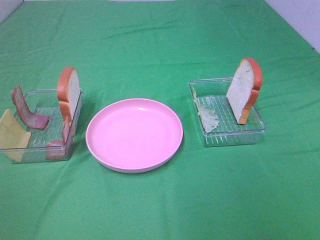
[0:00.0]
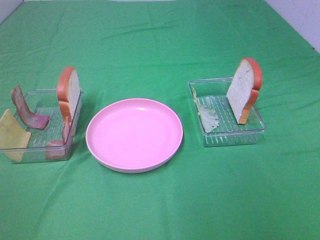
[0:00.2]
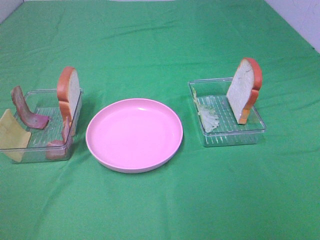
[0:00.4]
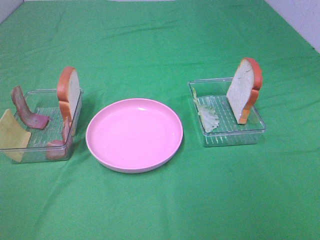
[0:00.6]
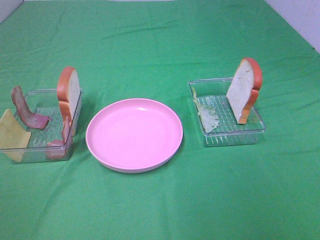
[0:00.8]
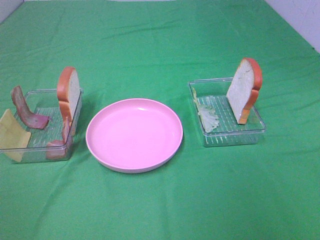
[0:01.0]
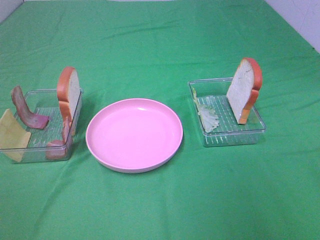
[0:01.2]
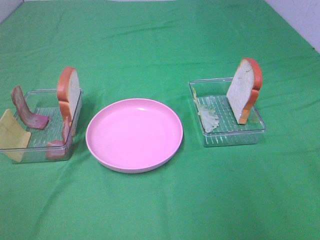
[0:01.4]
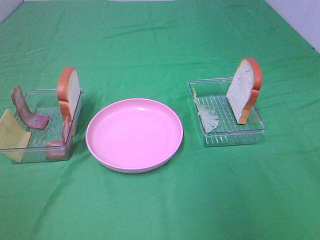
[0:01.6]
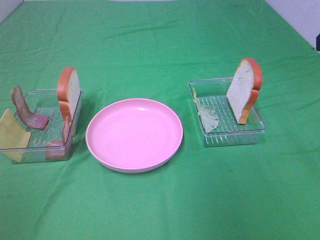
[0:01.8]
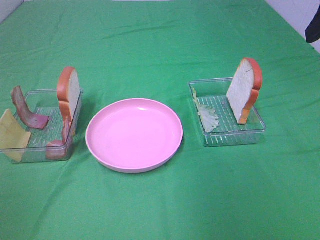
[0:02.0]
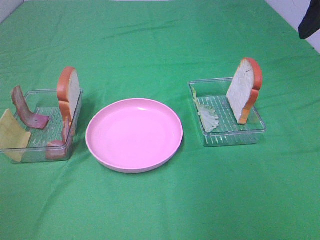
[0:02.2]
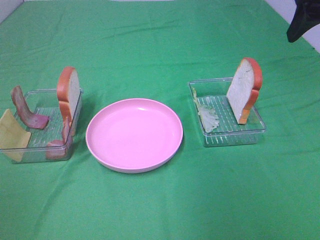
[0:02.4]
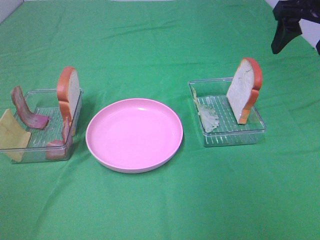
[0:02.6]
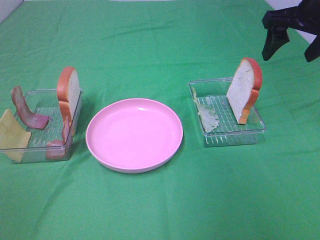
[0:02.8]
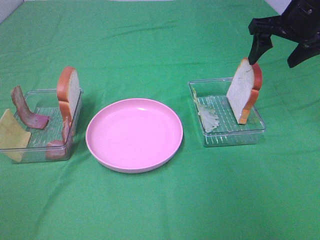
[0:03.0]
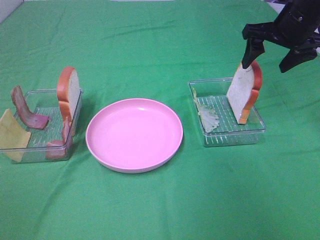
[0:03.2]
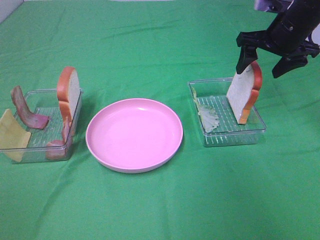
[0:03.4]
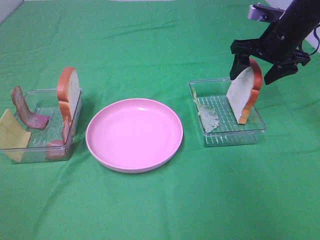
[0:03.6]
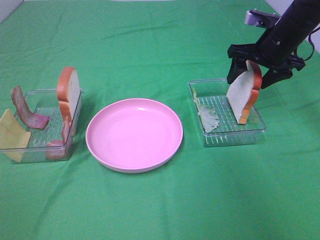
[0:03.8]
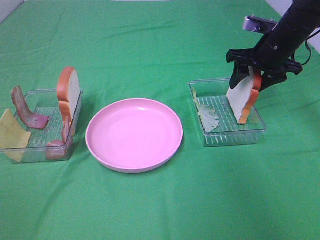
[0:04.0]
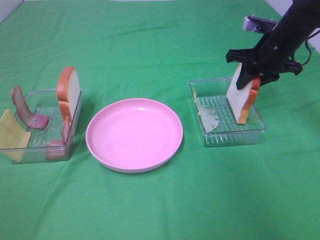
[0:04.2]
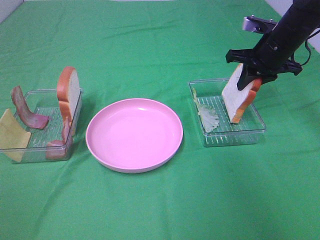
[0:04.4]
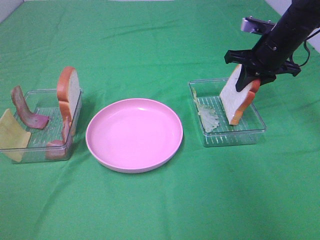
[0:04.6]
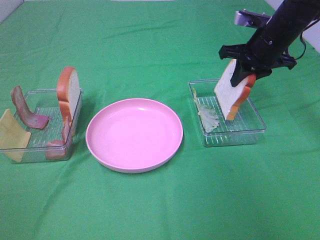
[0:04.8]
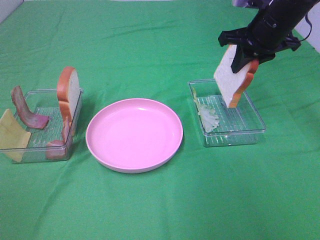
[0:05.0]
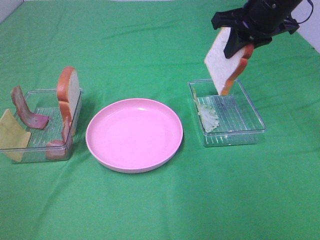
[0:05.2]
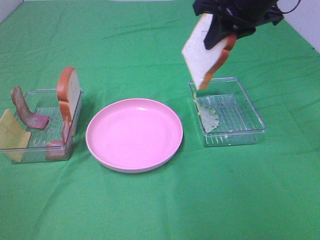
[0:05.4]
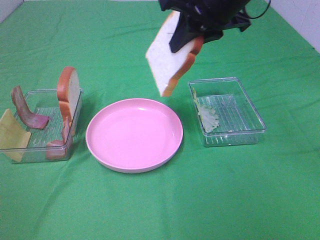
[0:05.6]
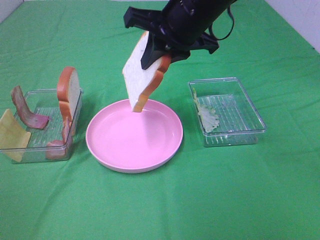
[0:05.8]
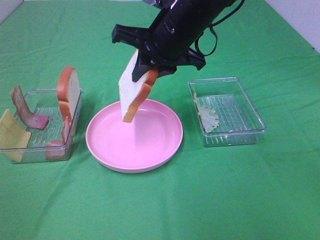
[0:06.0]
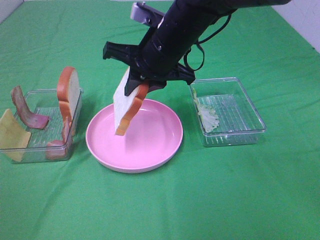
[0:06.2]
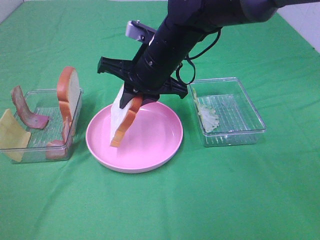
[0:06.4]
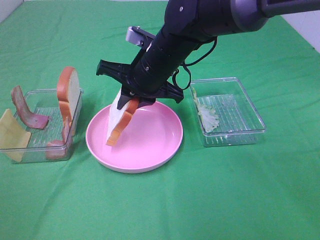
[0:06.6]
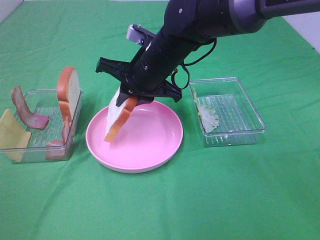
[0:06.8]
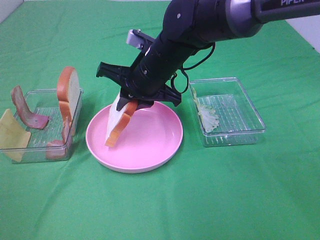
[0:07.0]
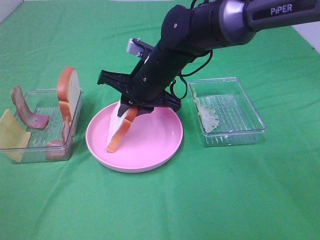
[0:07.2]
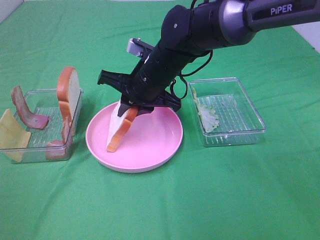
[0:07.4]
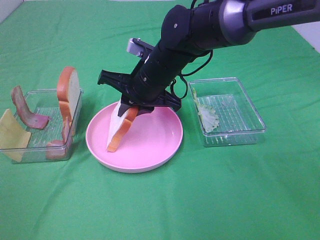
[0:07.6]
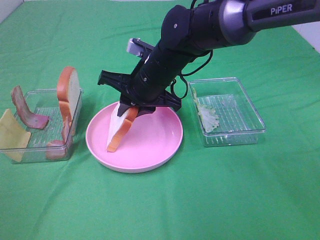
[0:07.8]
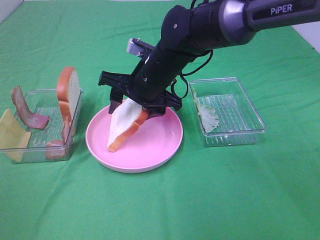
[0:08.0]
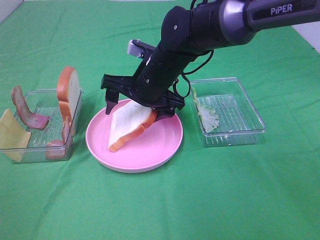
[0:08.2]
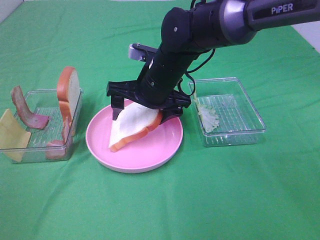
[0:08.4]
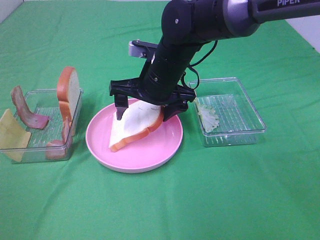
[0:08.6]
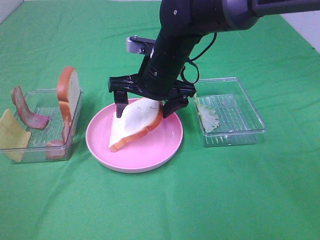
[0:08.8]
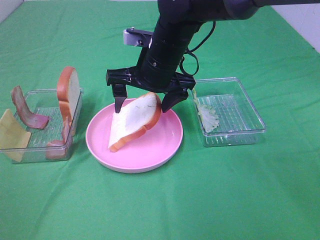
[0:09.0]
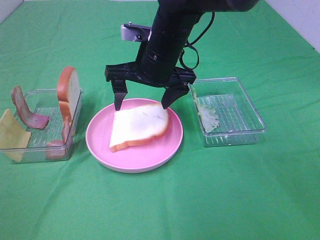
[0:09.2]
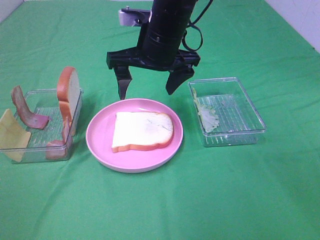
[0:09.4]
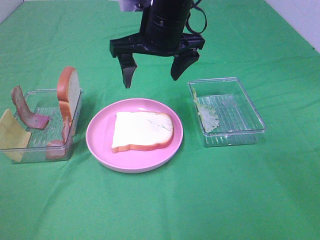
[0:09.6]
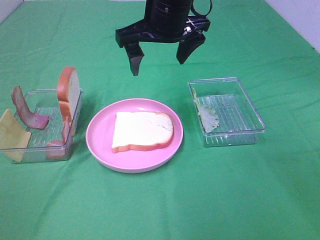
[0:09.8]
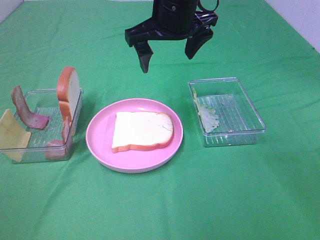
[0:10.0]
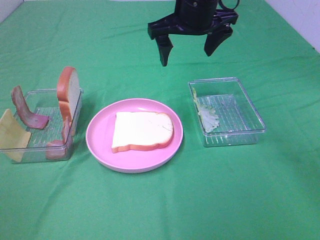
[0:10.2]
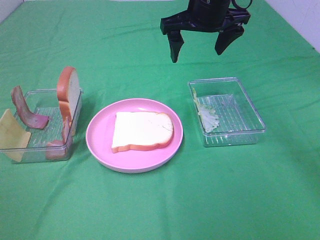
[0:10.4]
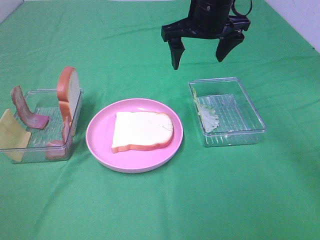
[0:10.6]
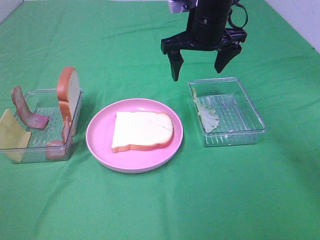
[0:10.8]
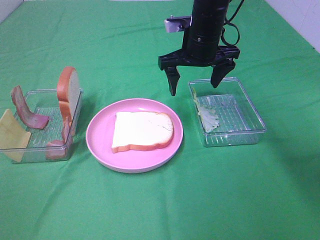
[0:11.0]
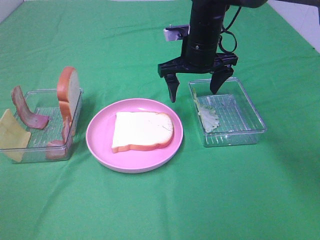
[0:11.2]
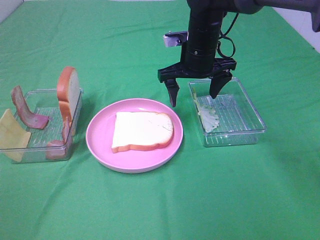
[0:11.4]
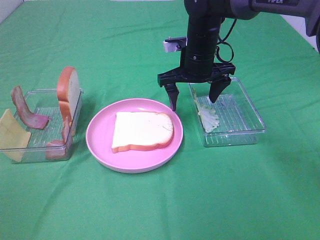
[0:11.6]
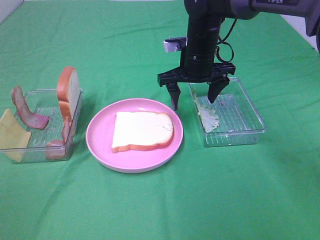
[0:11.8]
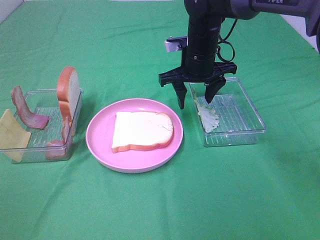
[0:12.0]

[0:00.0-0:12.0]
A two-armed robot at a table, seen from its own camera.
Task of the whole recording: Make sandwiches.
Step, 0:00.0 to 0:04.2: Right hand:grab the bread slice.
Step, 0:04.4 to 0:09.2: Right hand:place the bread slice on the plate.
0:01.6 to 0:03.0: The right gripper goes roughly 20 cm forward.
0:03.0 to 0:04.4: The right gripper moves downward, approximately 10 cm, and closes.
0:04.4 to 0:06.0: The right gripper is displaced to the left and backward by approximately 20 cm.
0:06.0 to 0:07.6: The right gripper travels downward by roughly 10 cm.
0:07.6 to 0:09.0: The right gripper opens.
0:09.0 to 0:10.4: The right gripper shifts about 15 cm upward, to the right and forward.
0:10.4 to 0:12.0: The right gripper is displaced downward by some 10 cm, and closes its fingers.

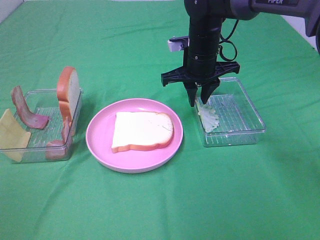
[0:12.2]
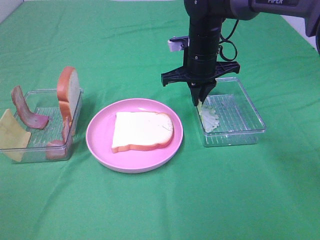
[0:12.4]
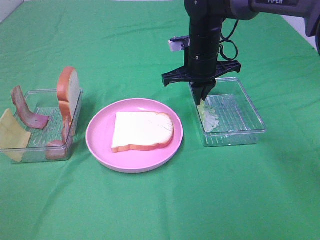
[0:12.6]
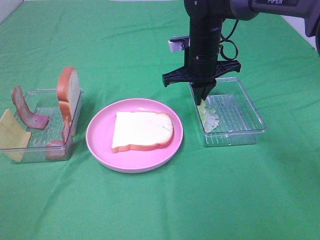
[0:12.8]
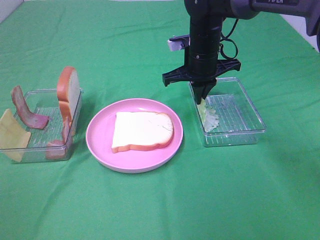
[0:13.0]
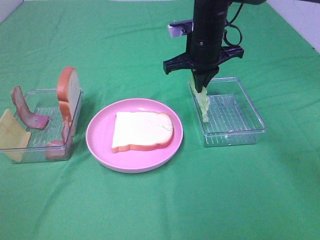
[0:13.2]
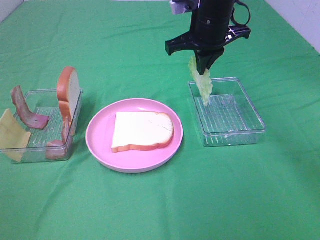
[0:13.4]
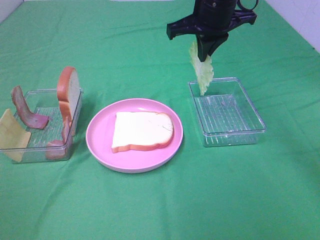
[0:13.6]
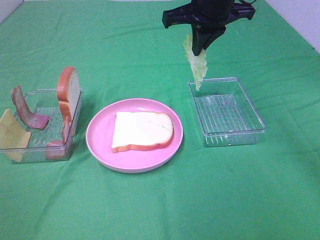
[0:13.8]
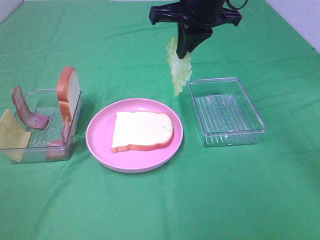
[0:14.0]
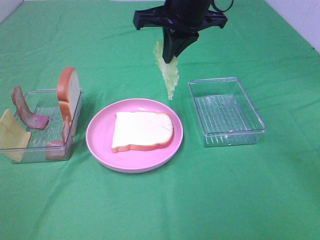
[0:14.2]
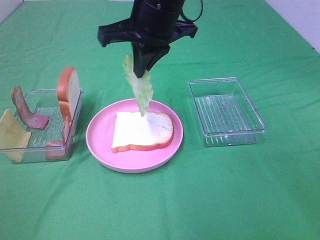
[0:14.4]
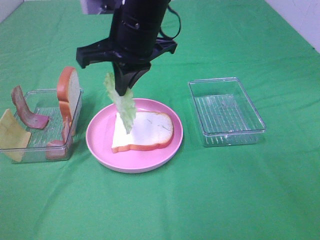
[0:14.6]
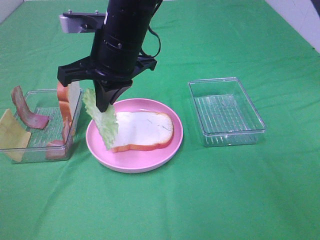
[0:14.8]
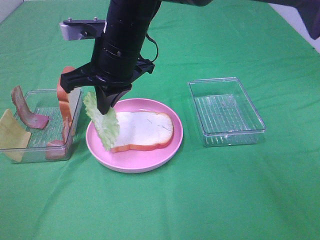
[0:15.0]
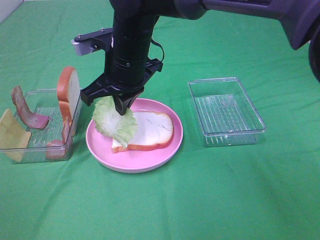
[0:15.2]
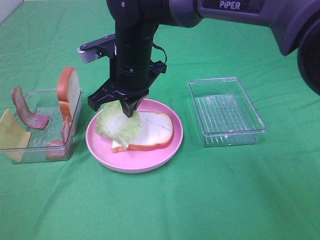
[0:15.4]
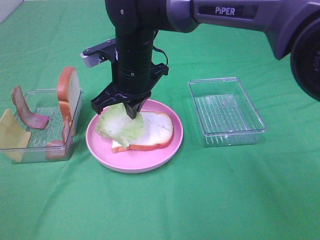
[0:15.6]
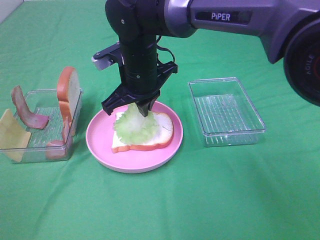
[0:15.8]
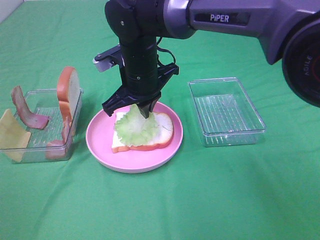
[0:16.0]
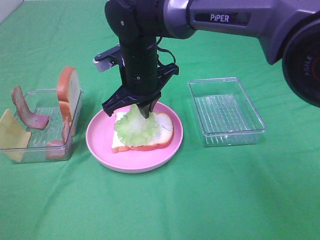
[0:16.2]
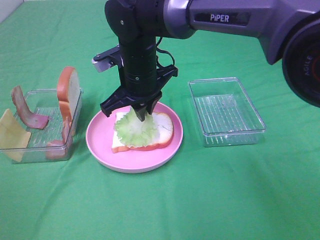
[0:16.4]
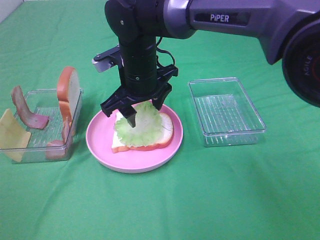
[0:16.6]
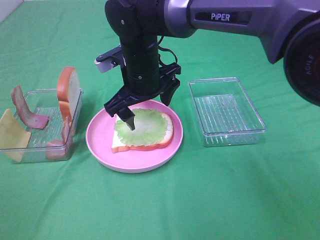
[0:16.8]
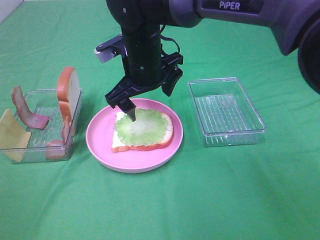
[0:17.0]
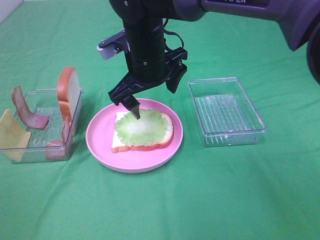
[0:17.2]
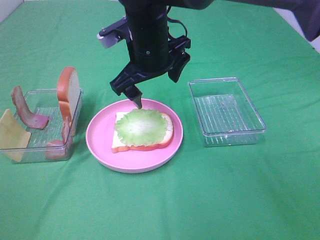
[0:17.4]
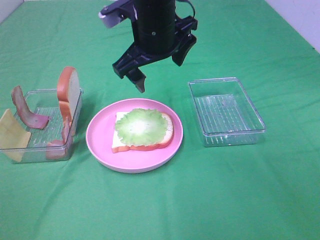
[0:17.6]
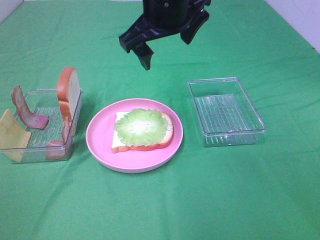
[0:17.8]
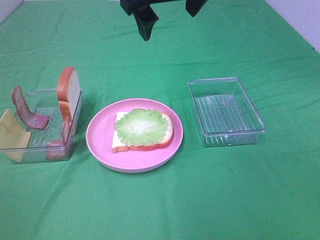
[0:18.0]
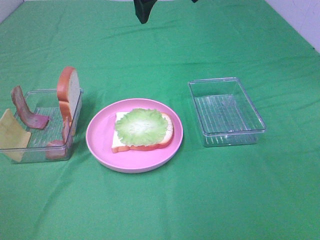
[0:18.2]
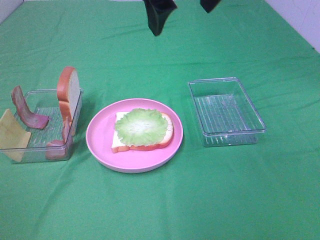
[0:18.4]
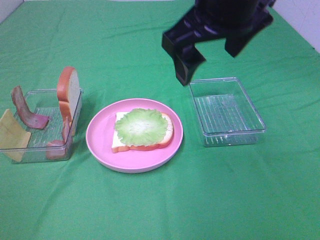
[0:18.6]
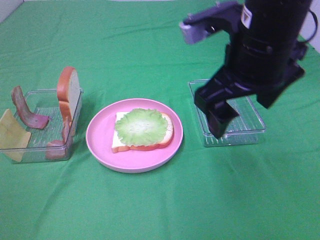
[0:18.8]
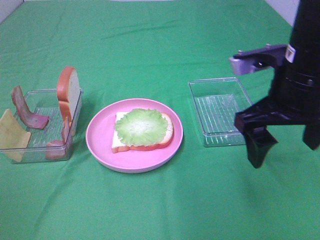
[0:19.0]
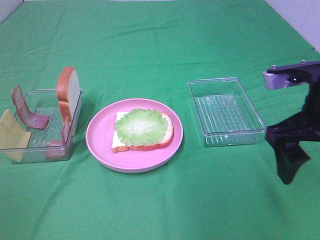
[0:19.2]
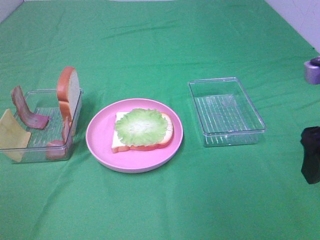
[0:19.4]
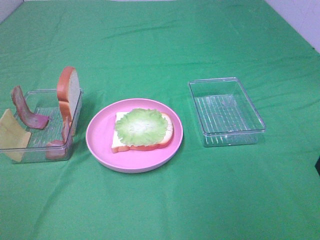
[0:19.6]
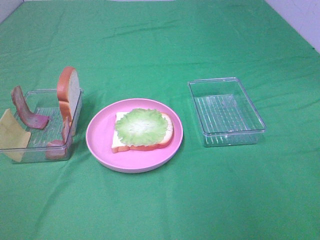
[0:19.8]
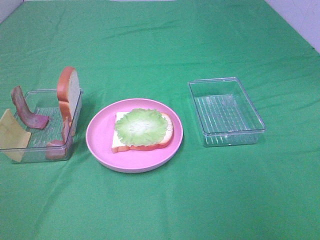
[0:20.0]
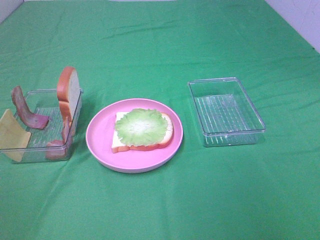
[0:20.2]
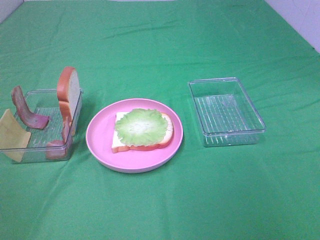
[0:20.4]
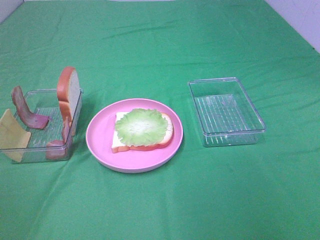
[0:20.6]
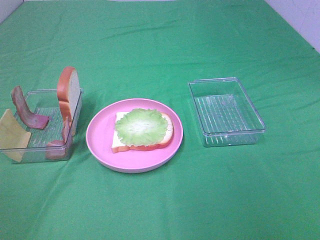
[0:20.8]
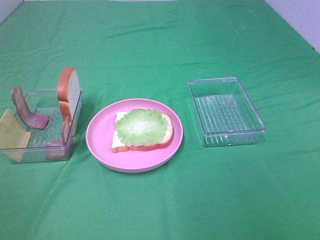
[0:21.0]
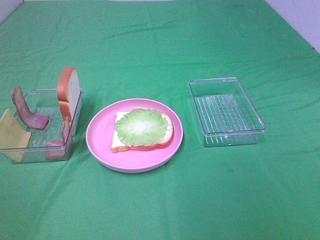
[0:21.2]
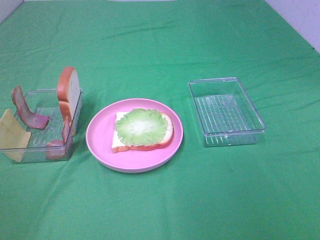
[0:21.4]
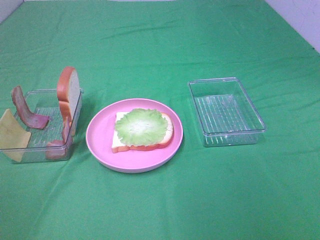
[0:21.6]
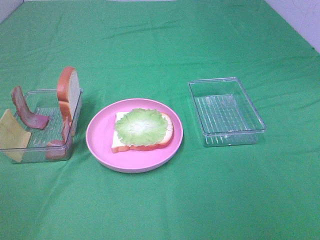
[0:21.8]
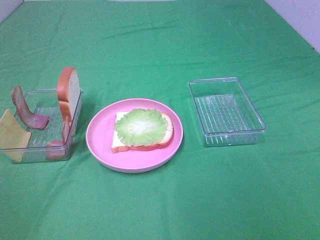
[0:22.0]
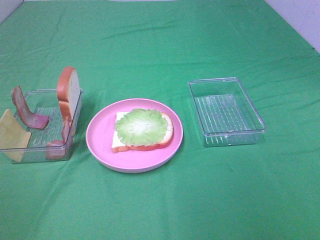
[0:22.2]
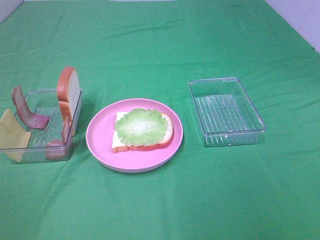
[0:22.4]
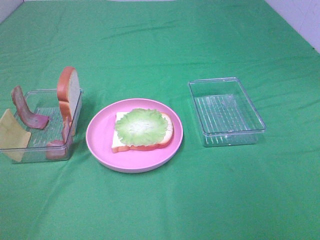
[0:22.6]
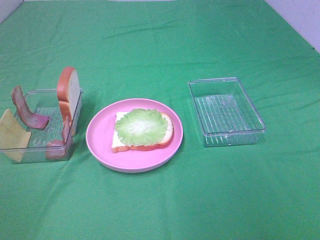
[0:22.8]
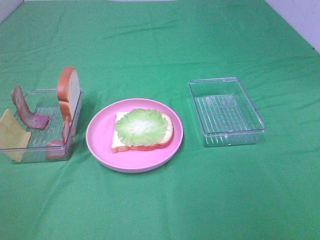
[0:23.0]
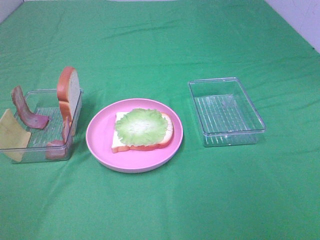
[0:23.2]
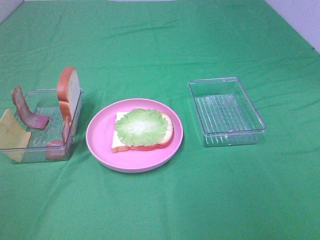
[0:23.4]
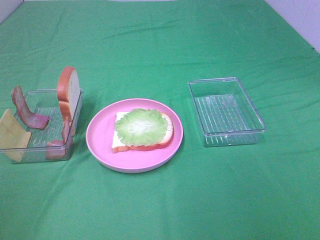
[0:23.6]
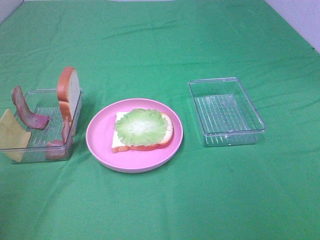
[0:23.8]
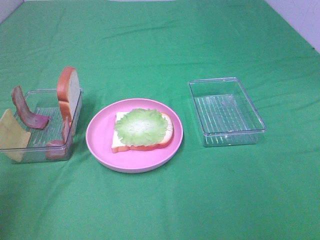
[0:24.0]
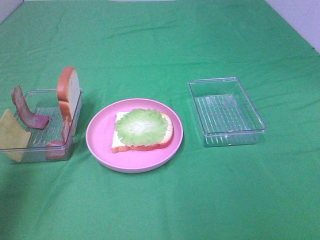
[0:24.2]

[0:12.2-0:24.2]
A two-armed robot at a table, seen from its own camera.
Task of the whole recording: Make sandwiches.
Step, 0:13.2 to 0:16.6: Right hand:place the lettuce slice on the bread slice.
0:12.2 to 0:13.8: The right gripper heads upward, covering roughly 10 cm.
0:13.8 to 0:15.2: The right gripper heads to the left, downward and backward, covering about 15 cm.
0:15.2 to 0:16.6: The right gripper opens.
0:16.6 to 0:18.2: The right gripper travels upward by approximately 20 cm.
0:21.2 to 0:22.6: Both grippers stay about where they are.
0:22.6 to 0:24.2: The left gripper heads forward, covering approximately 20 cm.
